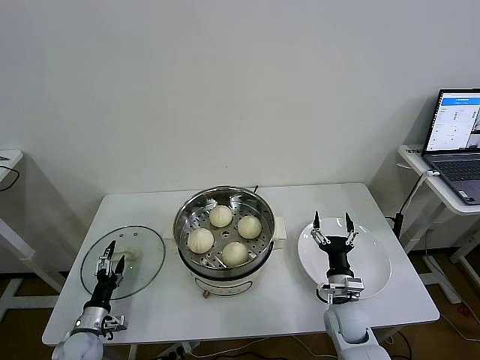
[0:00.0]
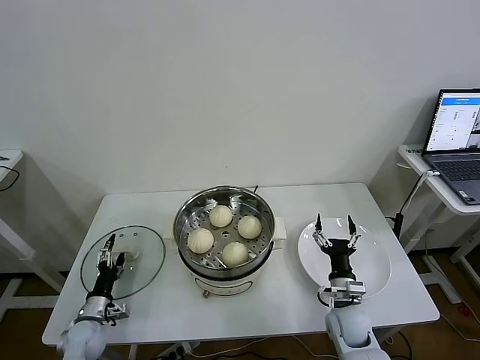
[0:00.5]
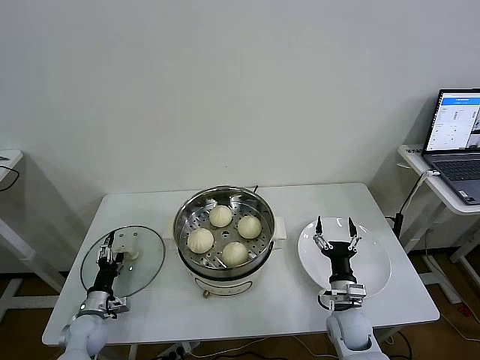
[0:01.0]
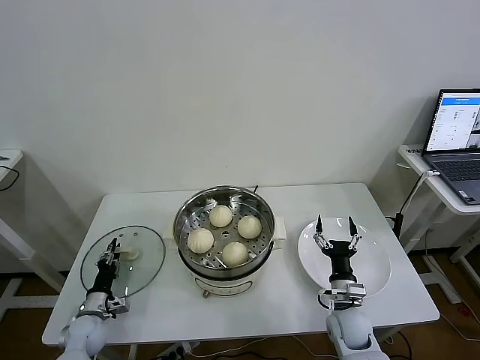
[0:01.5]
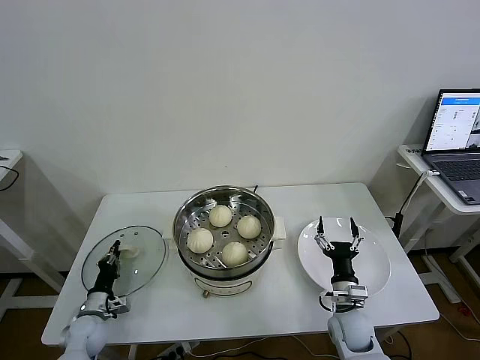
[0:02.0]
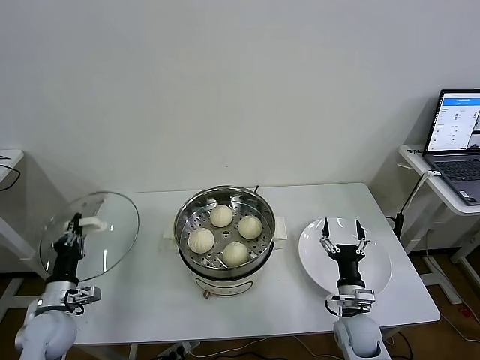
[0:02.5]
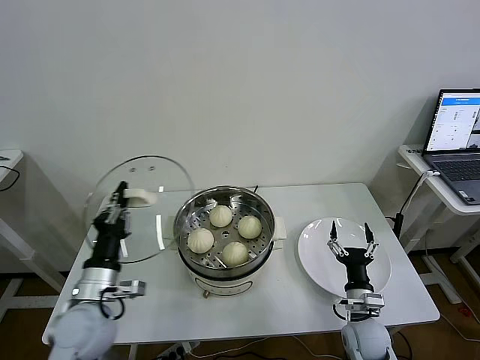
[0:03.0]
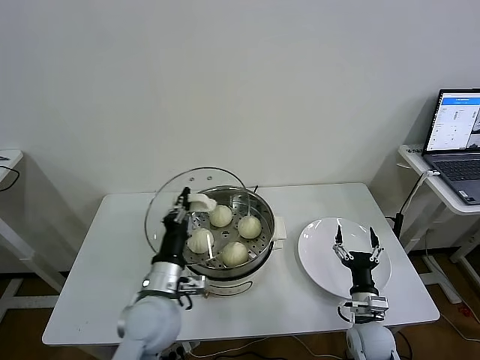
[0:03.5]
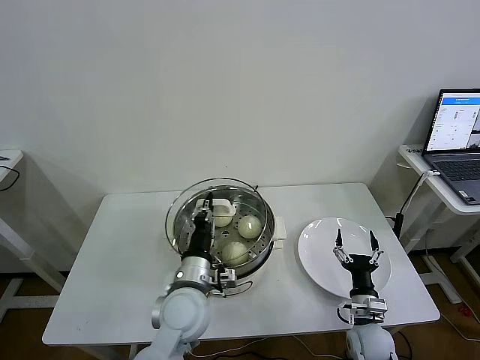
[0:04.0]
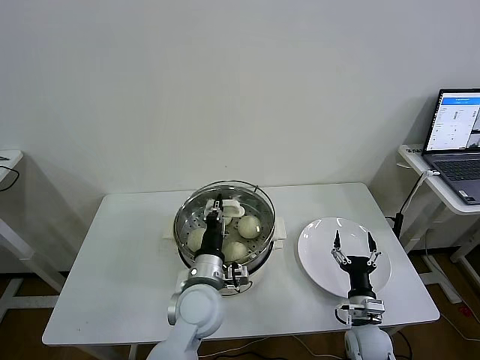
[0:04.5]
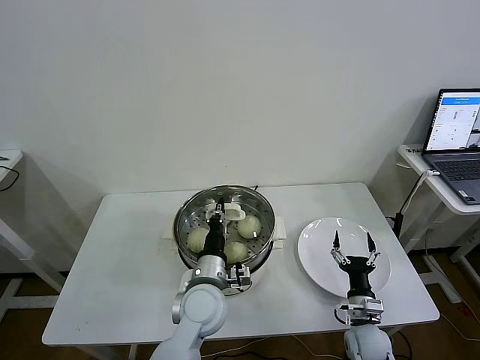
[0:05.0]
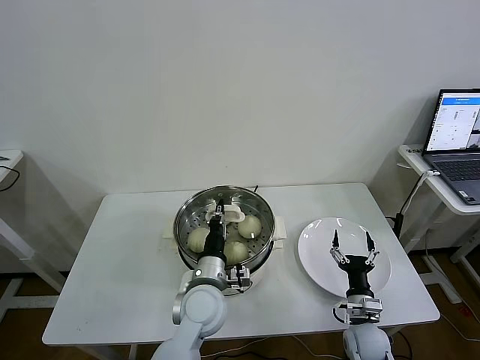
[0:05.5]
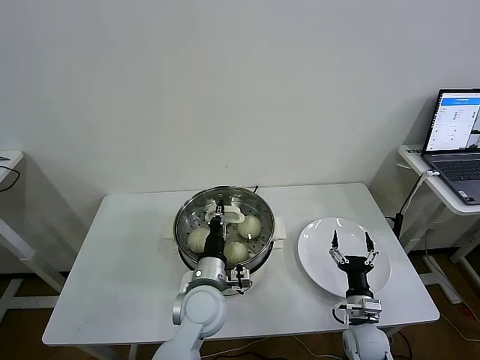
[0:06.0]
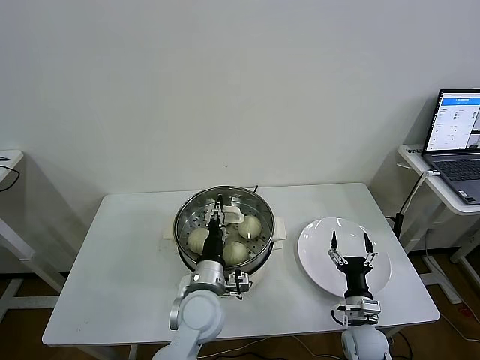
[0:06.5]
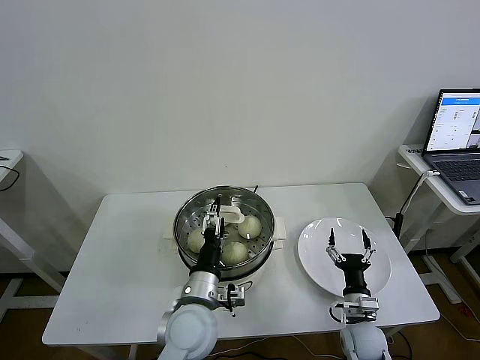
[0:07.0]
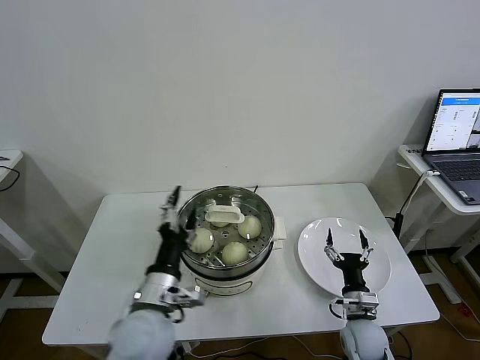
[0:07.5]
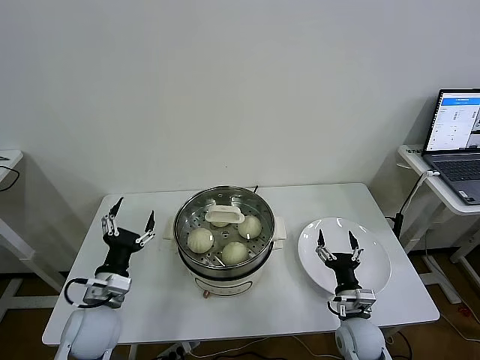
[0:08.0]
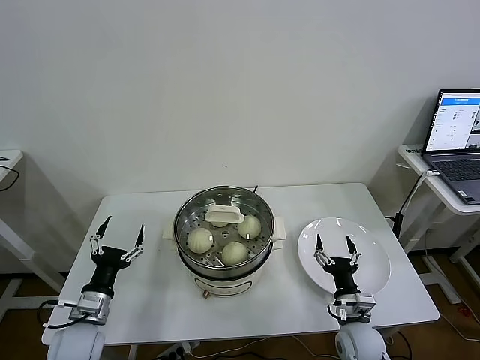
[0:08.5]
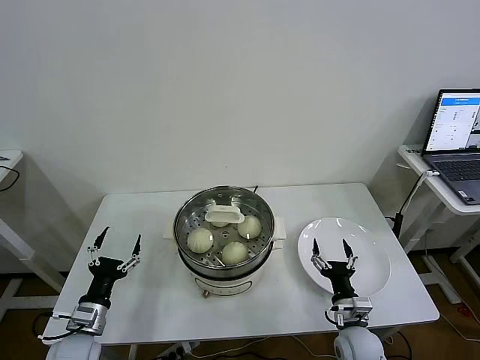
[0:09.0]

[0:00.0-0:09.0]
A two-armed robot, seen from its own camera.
Task of the whole recording: take steamed baozi put them in steamer then cover it.
Step, 0:00.0 to 0:02.0: Grasp the pot lid with left gripper.
Step, 0:02.5 to 0:06.0: Place the pot lid on the steamer with left gripper.
0:00.0 to 0:02.0: The left gripper closes.
0:02.0 to 0:04.5: The right gripper moves roughly 5 cm; the left gripper moves to the right and upward, about 35 cm.
0:04.5 to 0:07.0: The left gripper opens its fingers.
0:07.0 to 0:09.0: The left gripper goes some 25 cm to the left.
